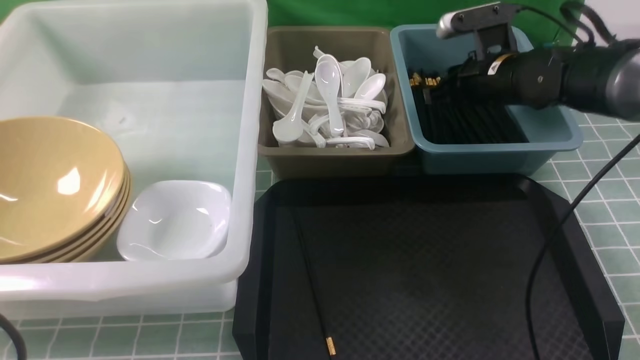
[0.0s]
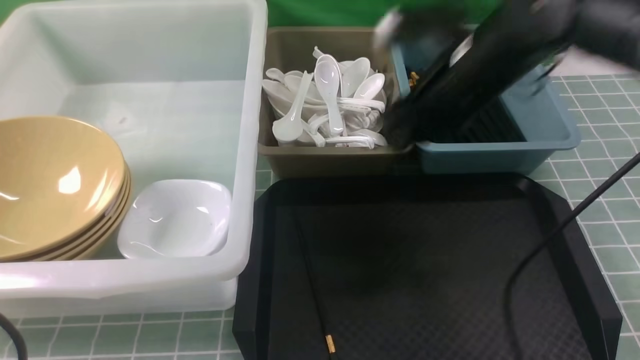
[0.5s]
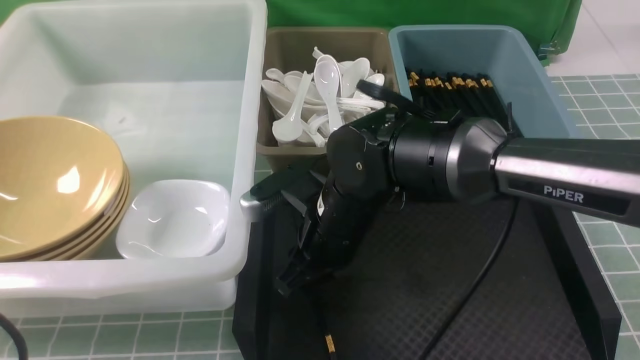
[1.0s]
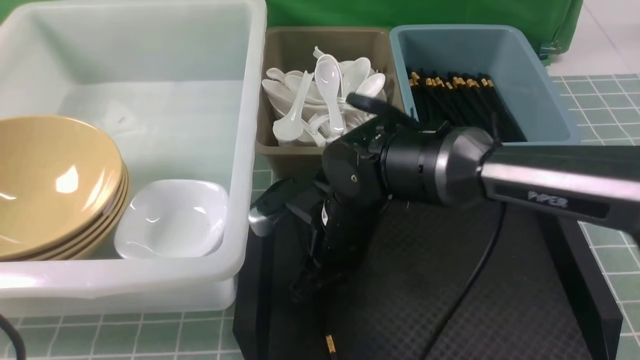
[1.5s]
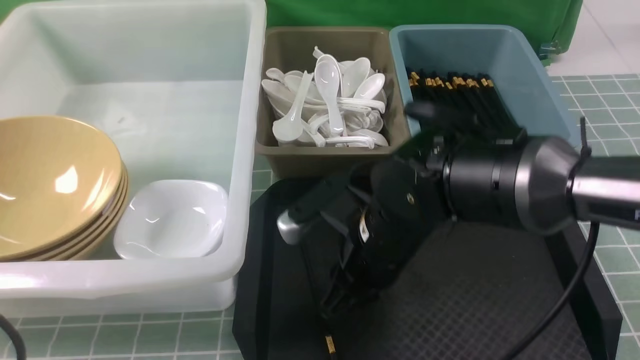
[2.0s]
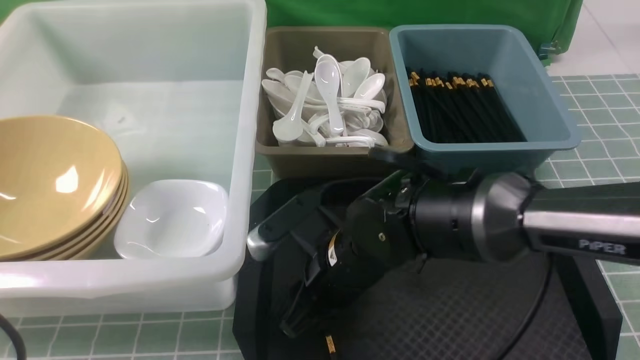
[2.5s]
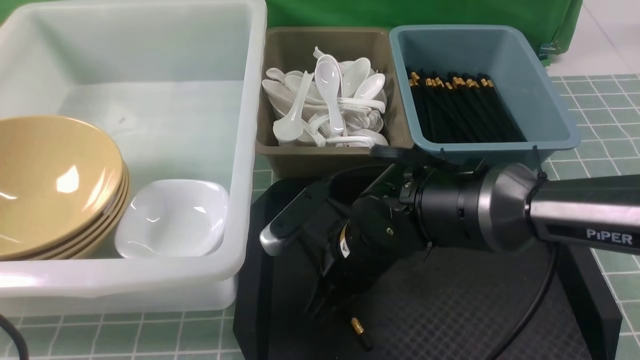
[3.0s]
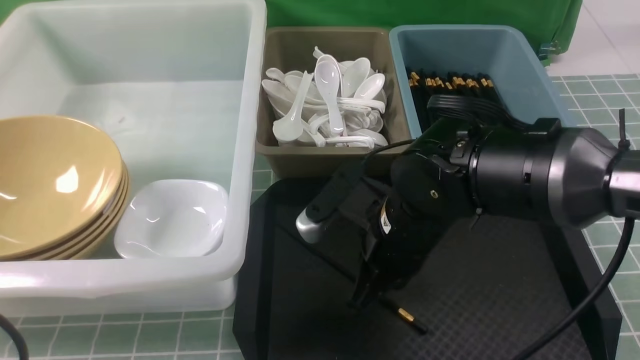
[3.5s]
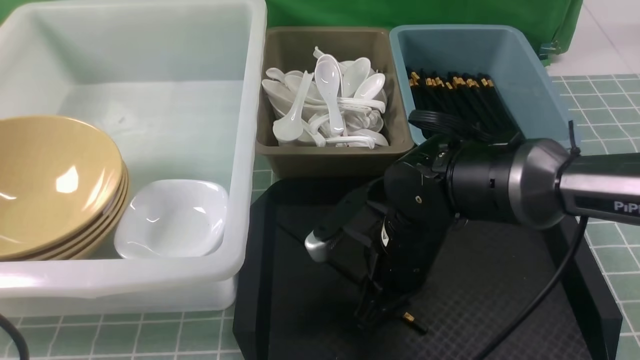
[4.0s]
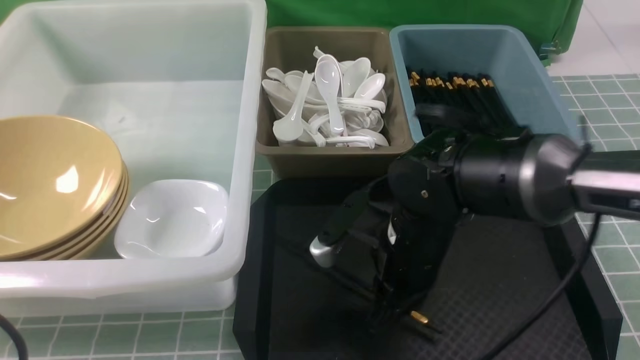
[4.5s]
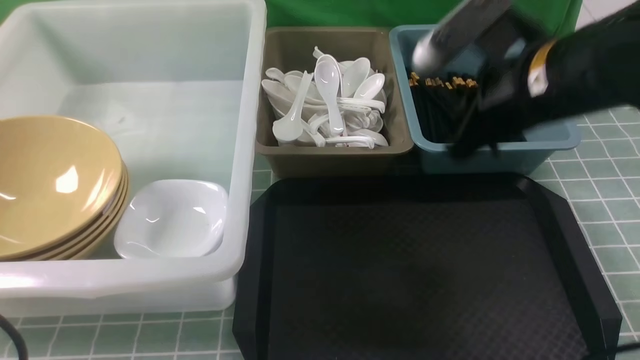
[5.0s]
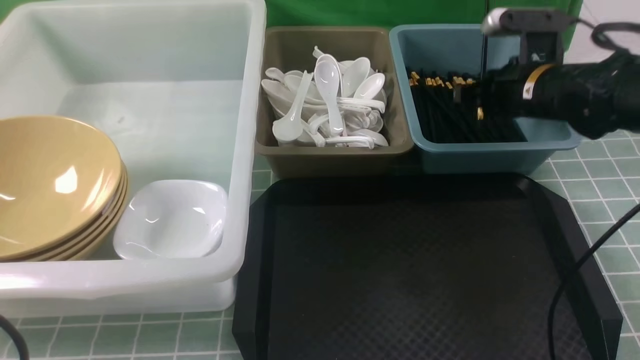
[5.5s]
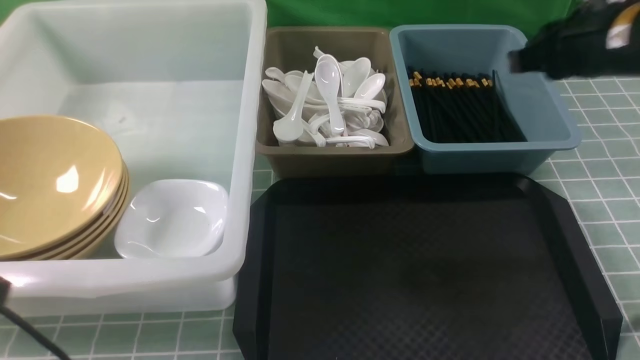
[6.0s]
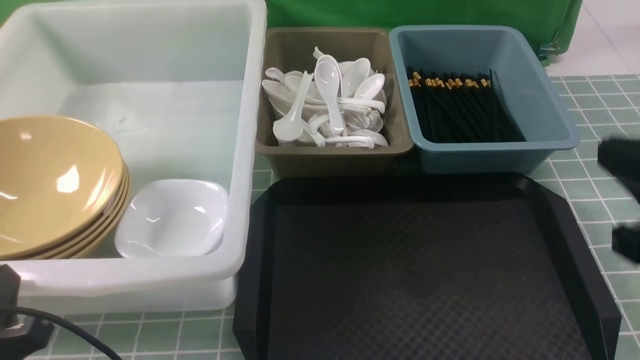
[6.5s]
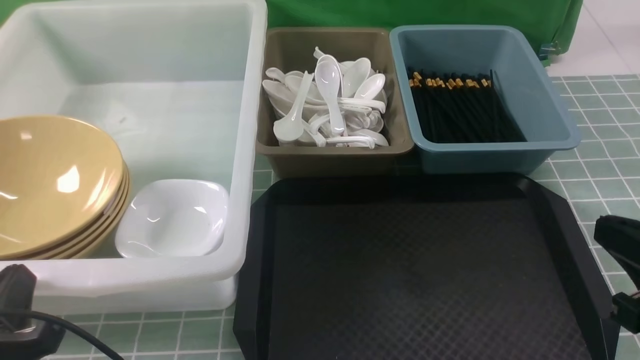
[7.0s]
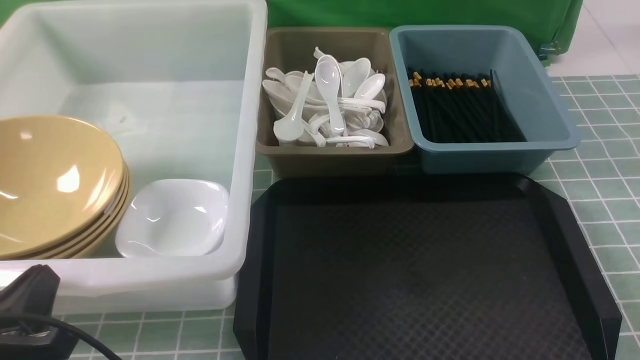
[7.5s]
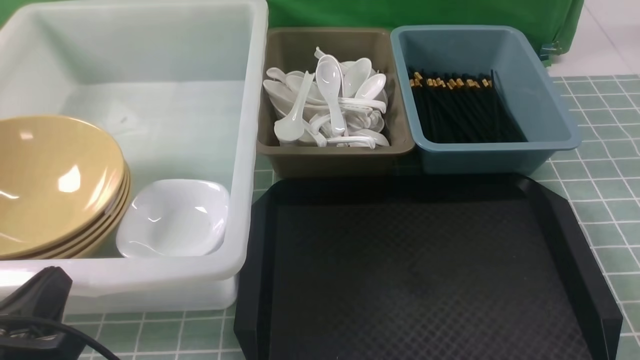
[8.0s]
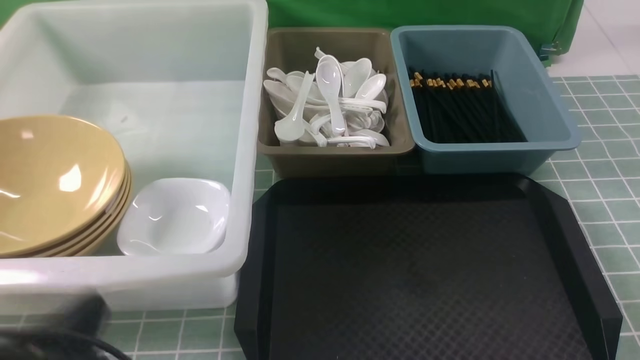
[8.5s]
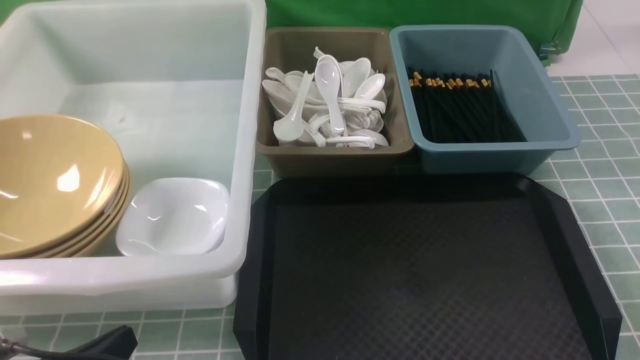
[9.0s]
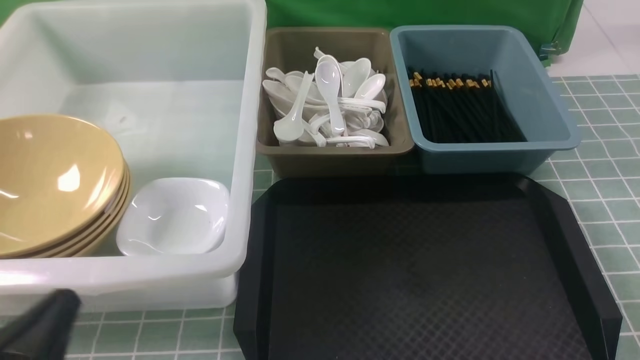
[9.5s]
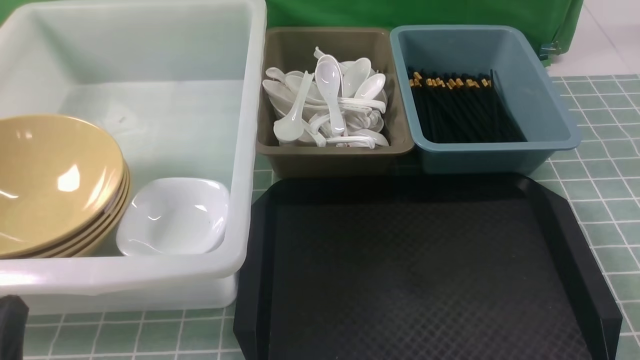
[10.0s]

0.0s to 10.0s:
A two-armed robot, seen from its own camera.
Task of the whole recording: on blue table put chopsticks spoon bowls plates into blue grey white boxes.
Step, 0.5s to 4.5s: use the right arm to grab a chopstick.
Step, 5.0s to 5.5s: use the right arm to put a chopstick into the small storage box on the right.
0.0s to 2.0s: The right gripper heads backward and to the left, covering approximately 25 cm.
2.0s to 4.0s: The right gripper closes and opens again.
4.0s to 6.0s: The right gripper goes up and down, some 20 cm each way, reversing 2 times. The left gripper travels downward by about 5 cm.
6.0s to 8.0s: The left gripper moves some 5 cm. The right gripper travels backward and downward by about 30 cm.

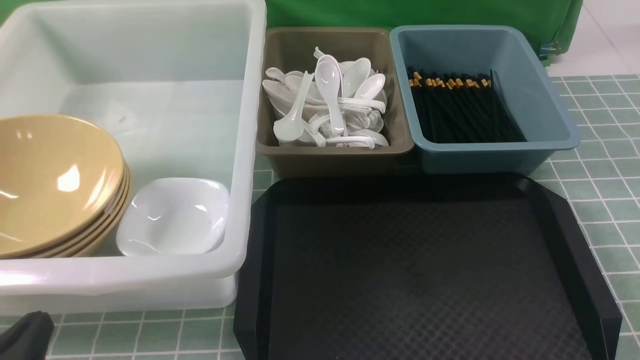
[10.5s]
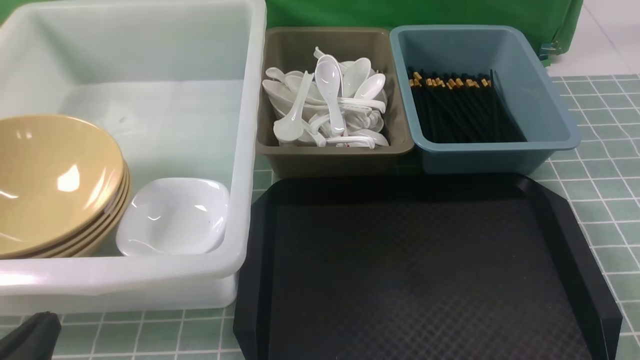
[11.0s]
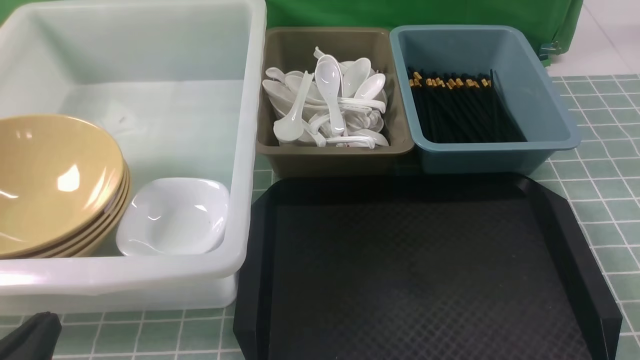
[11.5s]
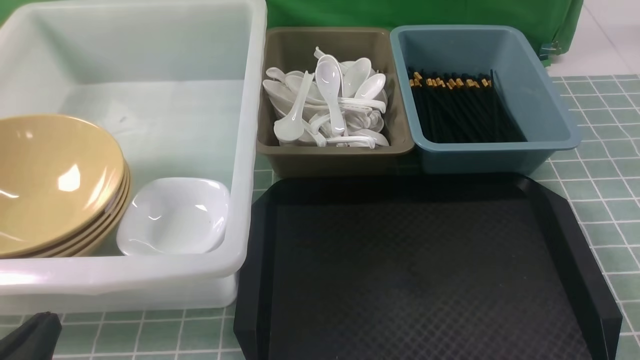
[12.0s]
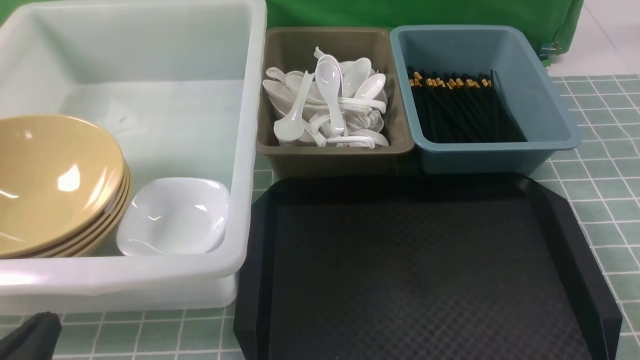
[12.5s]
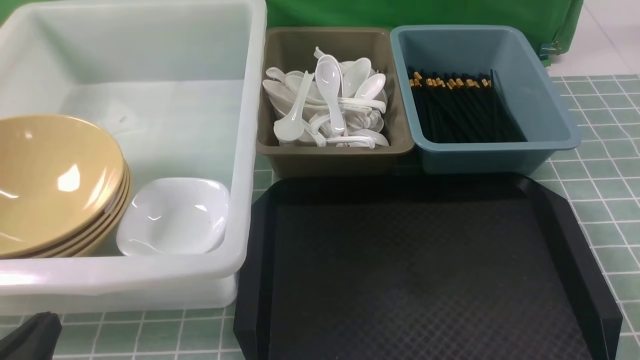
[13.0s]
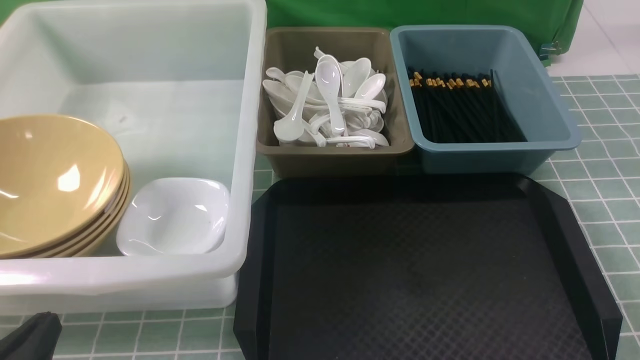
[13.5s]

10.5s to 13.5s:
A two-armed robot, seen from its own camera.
Task of the whole recording: on blue table put chopsticks spoon bowls plates into blue grey white boxes.
10.5s to 13.5s: Both grippers stay about where they are.
